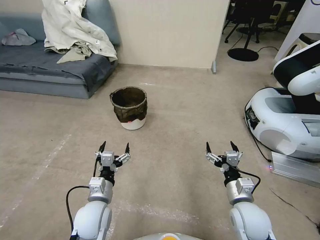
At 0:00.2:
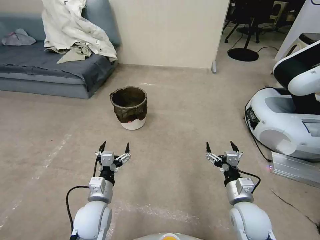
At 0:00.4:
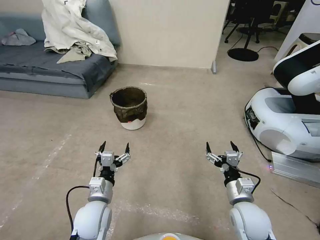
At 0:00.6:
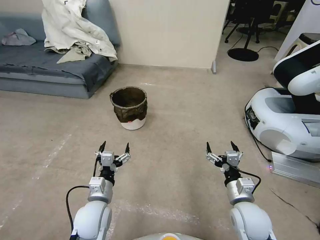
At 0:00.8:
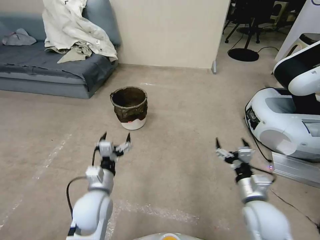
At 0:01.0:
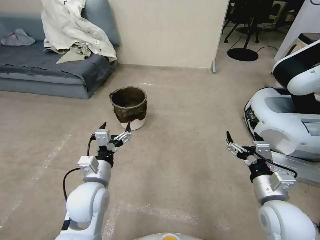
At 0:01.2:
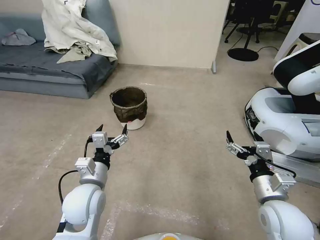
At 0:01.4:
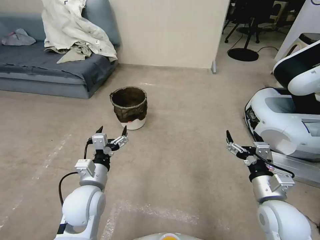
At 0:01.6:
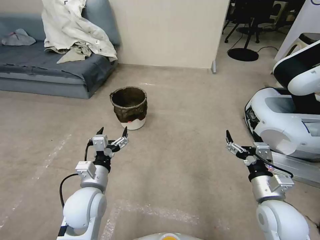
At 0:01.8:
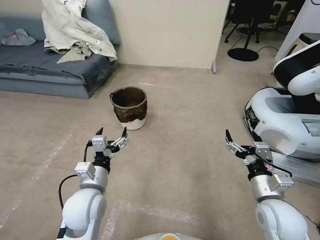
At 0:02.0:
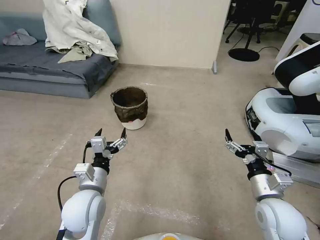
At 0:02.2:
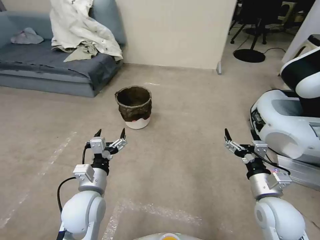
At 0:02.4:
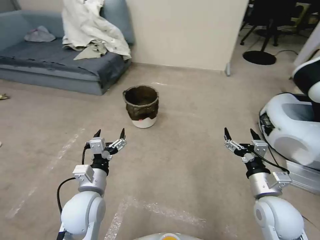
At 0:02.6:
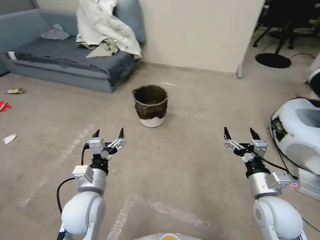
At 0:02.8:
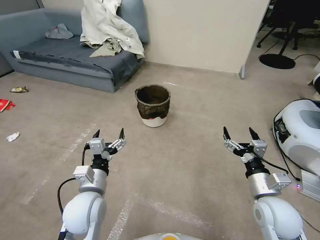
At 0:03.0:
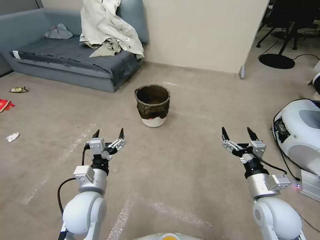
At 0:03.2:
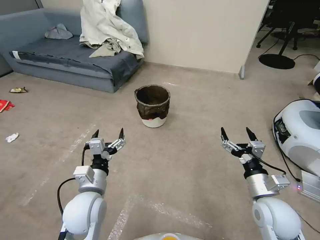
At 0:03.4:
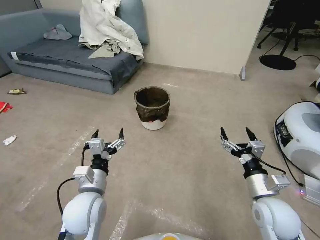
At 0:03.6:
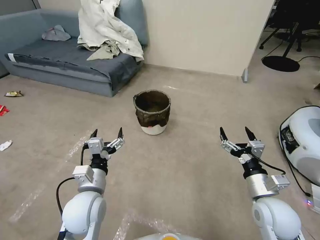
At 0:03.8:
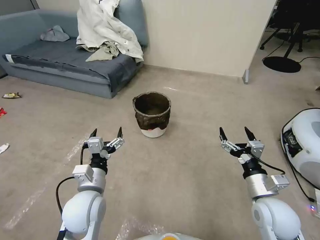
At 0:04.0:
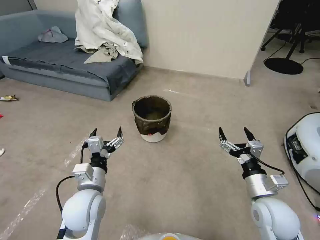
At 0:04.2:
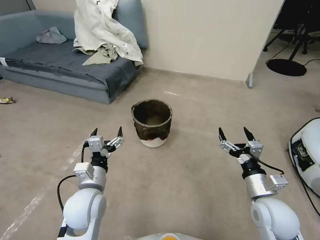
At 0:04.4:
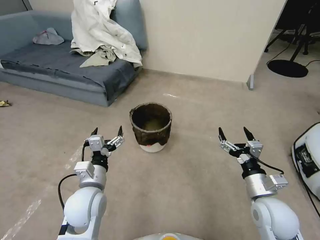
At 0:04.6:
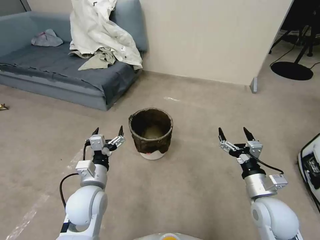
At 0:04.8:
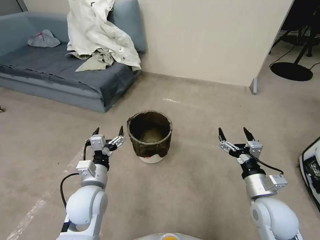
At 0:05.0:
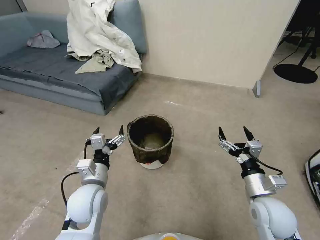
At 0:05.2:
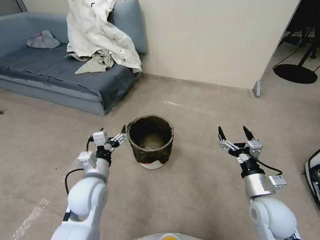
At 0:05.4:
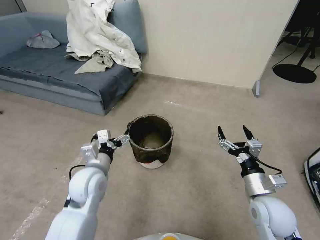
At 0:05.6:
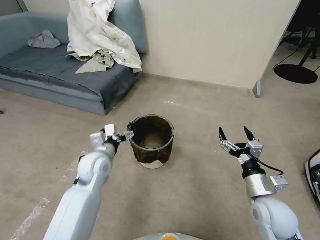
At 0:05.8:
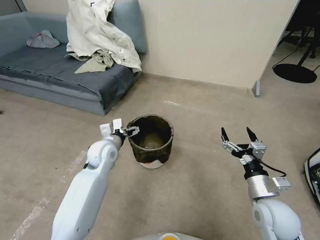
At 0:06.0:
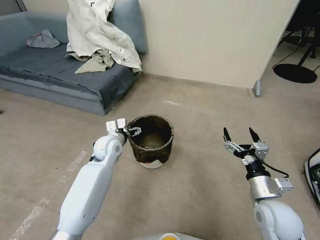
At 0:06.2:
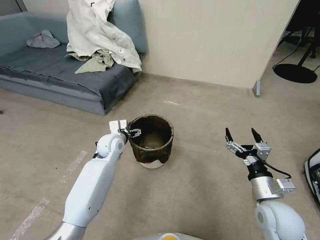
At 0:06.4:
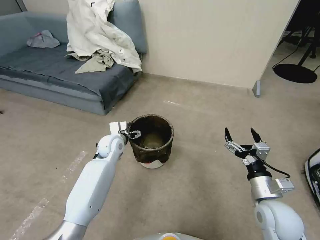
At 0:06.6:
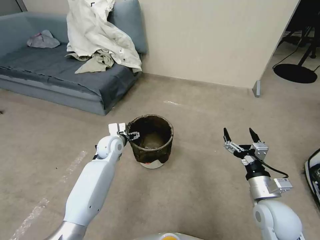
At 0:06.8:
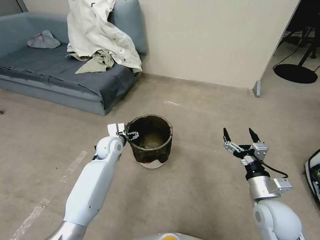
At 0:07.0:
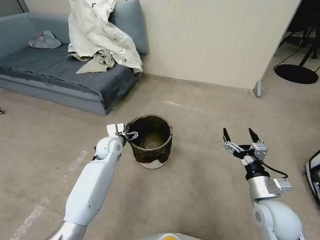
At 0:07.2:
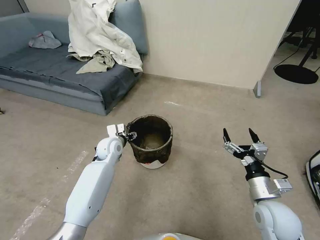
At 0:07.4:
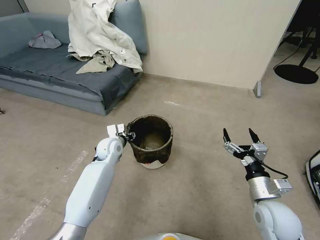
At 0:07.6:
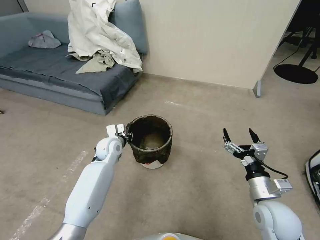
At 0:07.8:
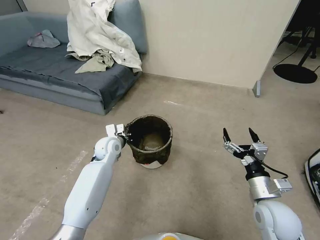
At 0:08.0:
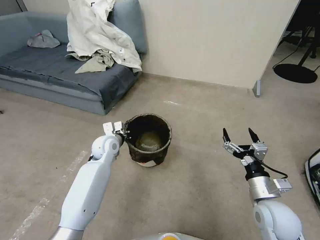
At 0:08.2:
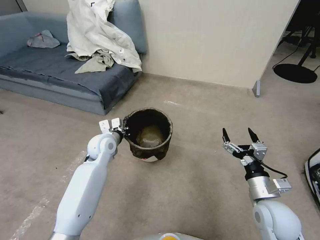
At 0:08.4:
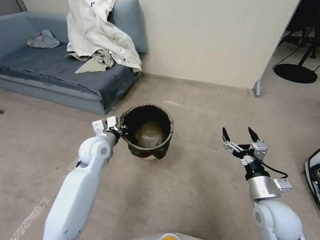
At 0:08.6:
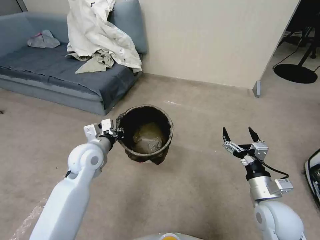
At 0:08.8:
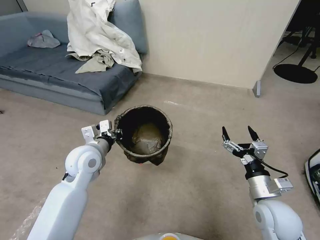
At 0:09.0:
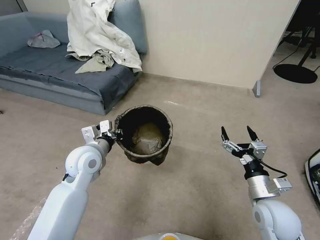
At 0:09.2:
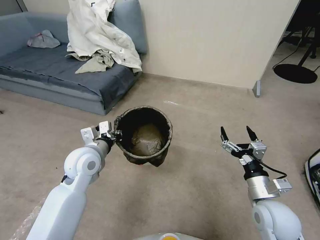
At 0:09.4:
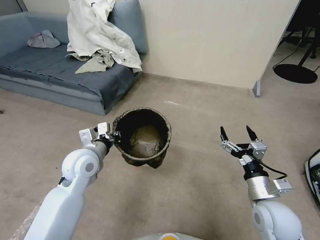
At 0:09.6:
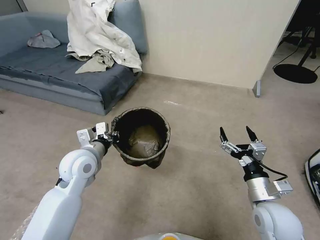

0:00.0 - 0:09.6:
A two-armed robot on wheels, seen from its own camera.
Task of the whole recording: Pick up the trash can from the floor.
0:04.8 - 0:06.4: The left gripper travels forward by some 20 cm.
0:06.4 - 0:08.0: The left gripper closes up.
0:08.0 - 0:09.6: The left gripper heads backward and upward, covering approximately 15 cm.
